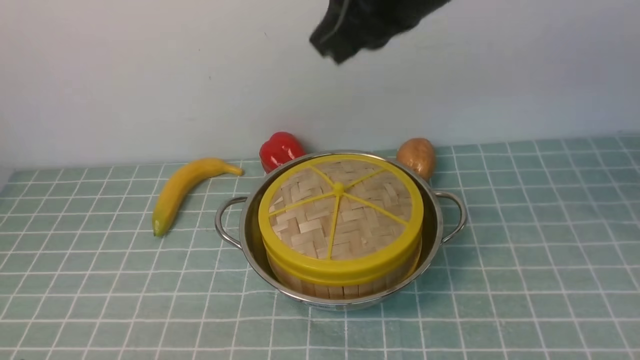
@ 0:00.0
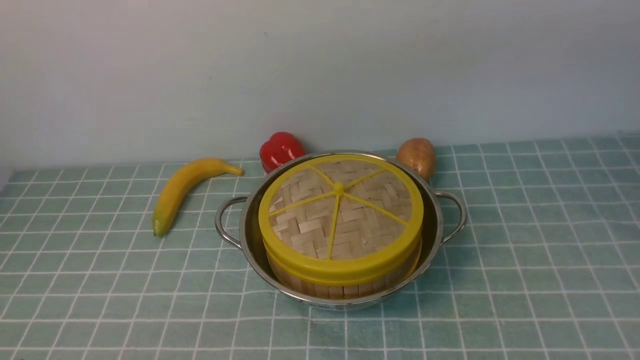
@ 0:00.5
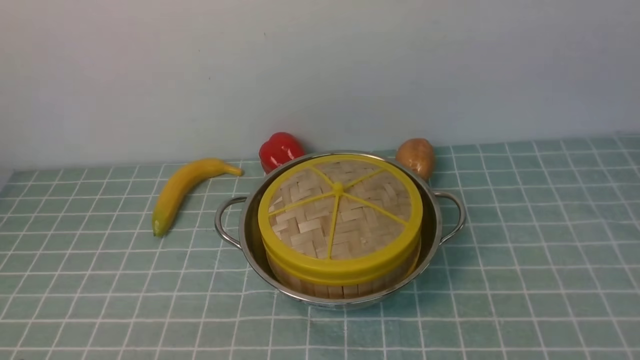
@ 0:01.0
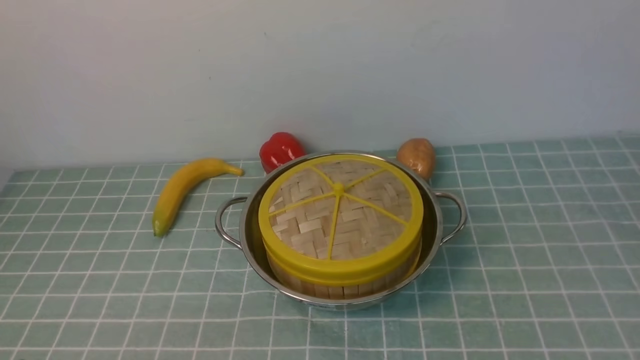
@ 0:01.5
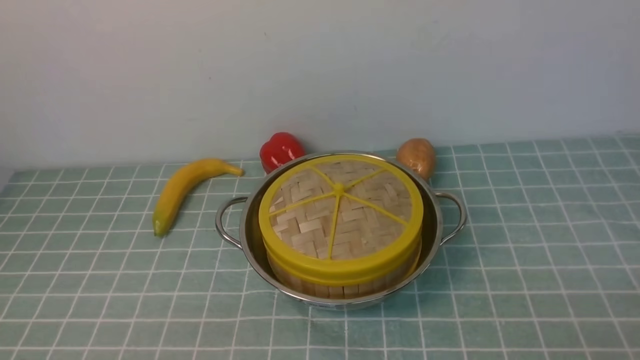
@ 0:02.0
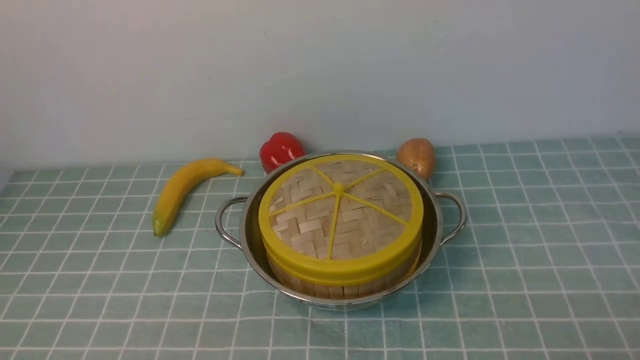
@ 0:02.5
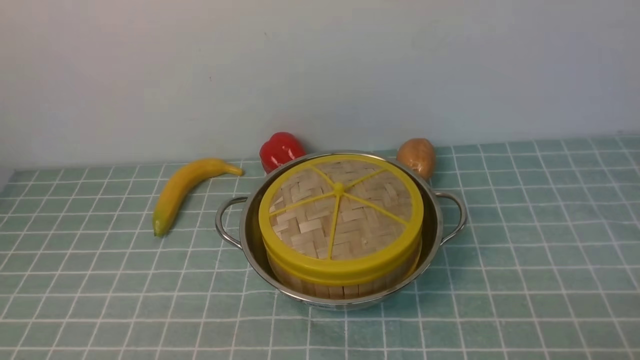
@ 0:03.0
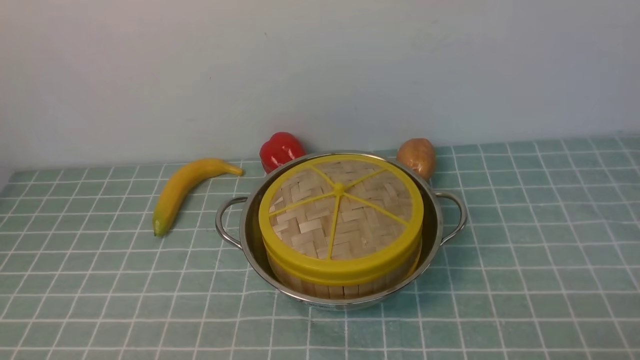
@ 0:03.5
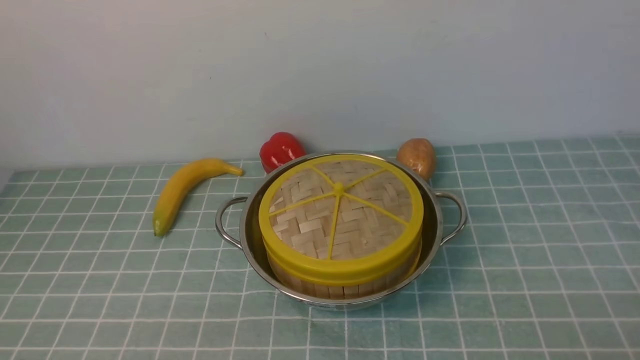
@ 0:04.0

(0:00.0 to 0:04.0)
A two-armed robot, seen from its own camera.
Task of the whole recording: place the steamer in the pot on the blue tablecloth, and put the lid on the steamer.
0:00.0 - 0:02.0: The right gripper goes about 40 cm backward, downward and to the right, and opens up.
0:02.0 - 0:04.0: The two grippers keep their place.
